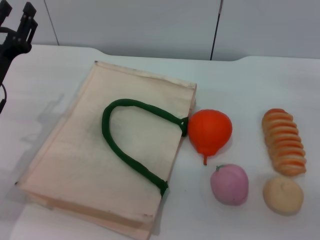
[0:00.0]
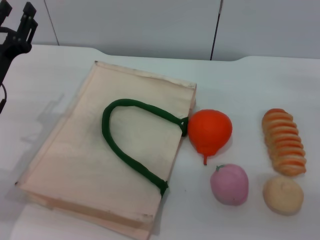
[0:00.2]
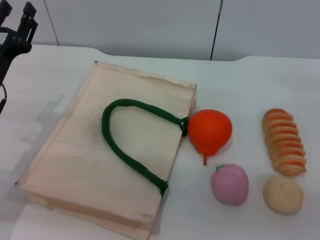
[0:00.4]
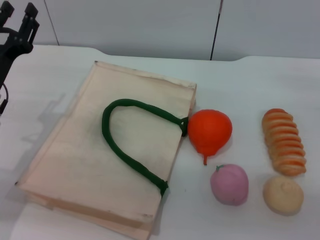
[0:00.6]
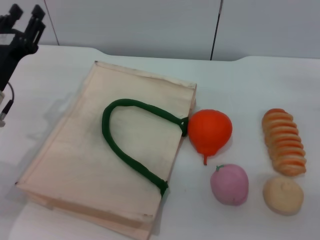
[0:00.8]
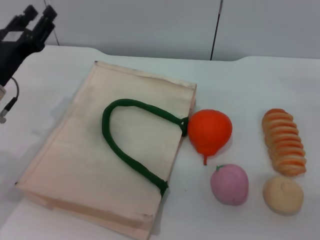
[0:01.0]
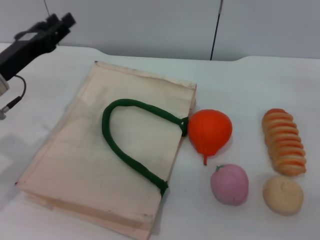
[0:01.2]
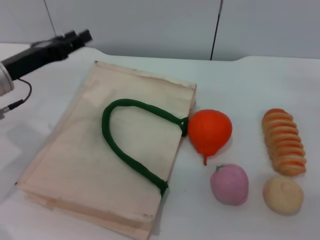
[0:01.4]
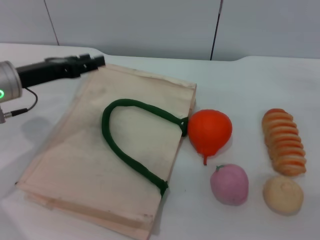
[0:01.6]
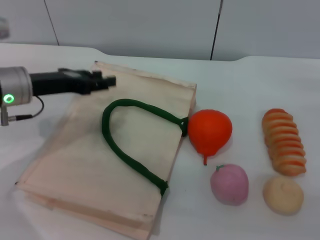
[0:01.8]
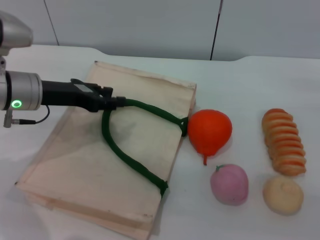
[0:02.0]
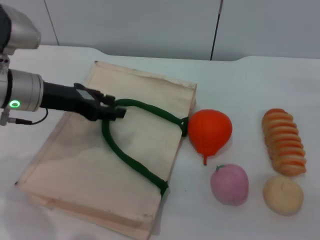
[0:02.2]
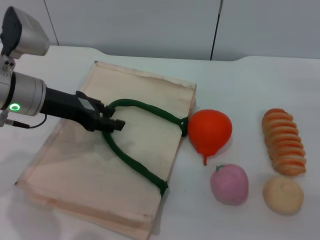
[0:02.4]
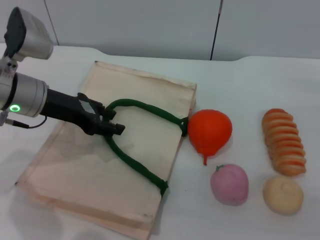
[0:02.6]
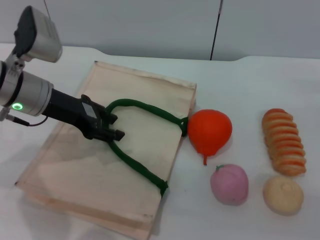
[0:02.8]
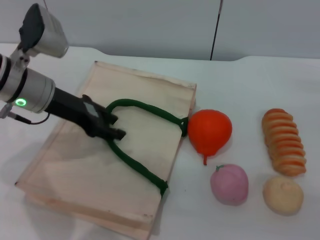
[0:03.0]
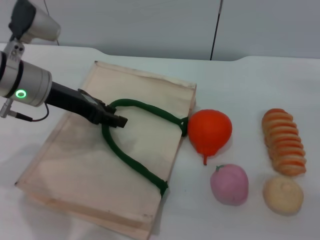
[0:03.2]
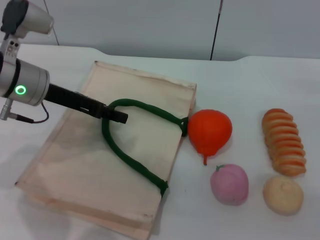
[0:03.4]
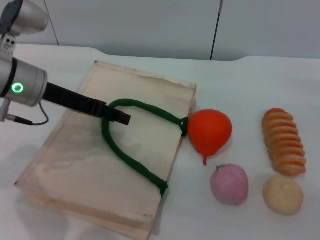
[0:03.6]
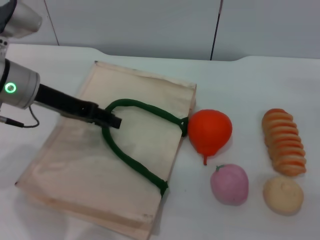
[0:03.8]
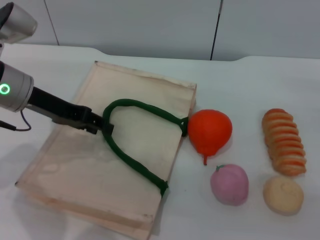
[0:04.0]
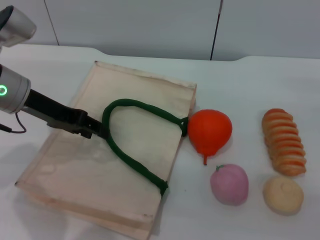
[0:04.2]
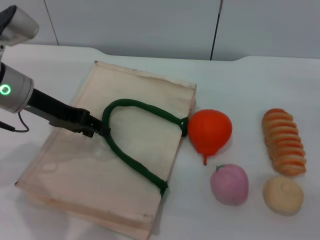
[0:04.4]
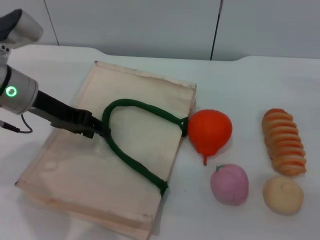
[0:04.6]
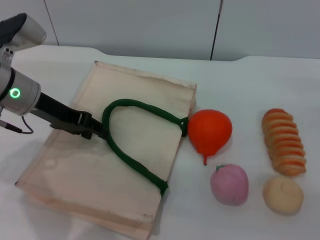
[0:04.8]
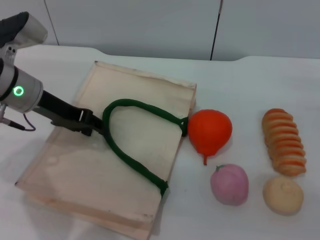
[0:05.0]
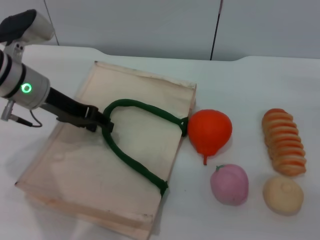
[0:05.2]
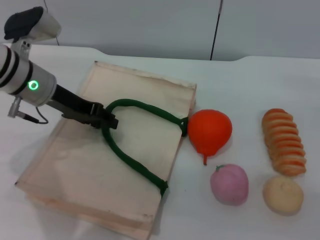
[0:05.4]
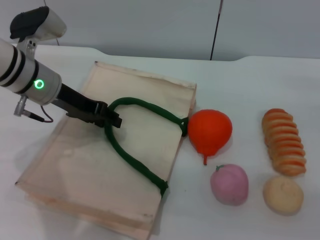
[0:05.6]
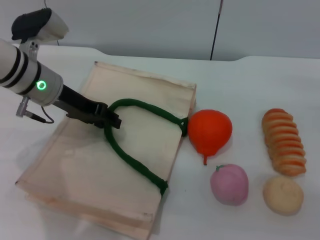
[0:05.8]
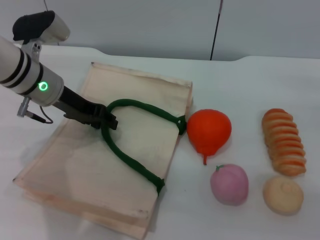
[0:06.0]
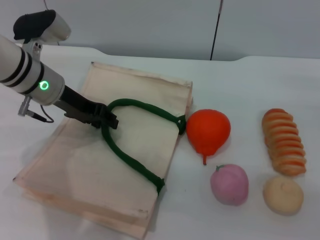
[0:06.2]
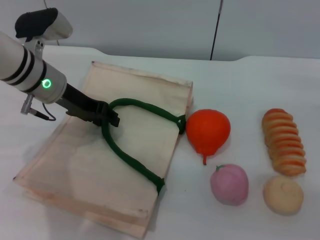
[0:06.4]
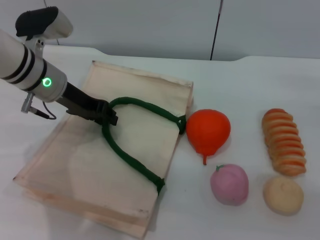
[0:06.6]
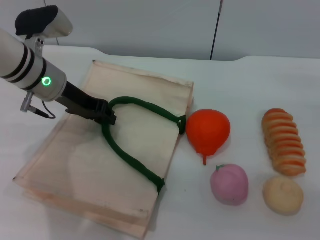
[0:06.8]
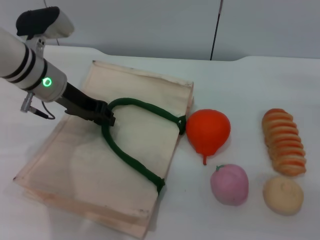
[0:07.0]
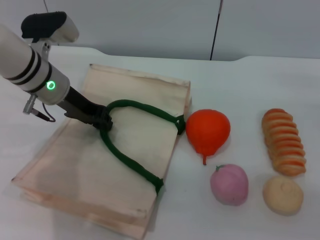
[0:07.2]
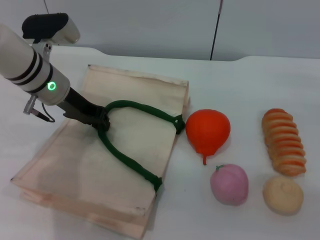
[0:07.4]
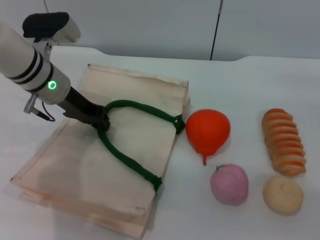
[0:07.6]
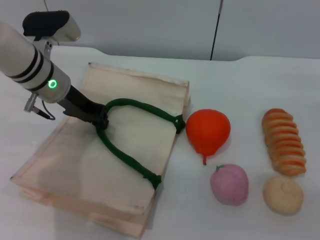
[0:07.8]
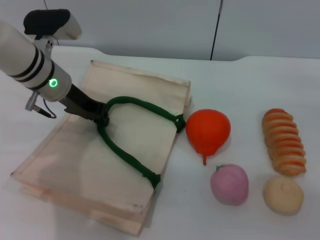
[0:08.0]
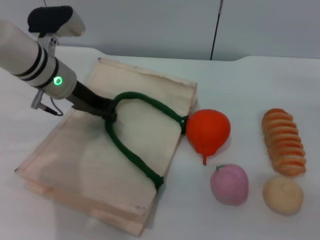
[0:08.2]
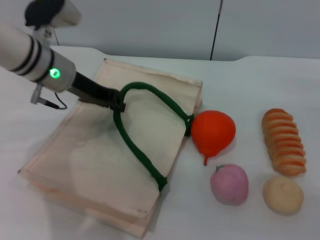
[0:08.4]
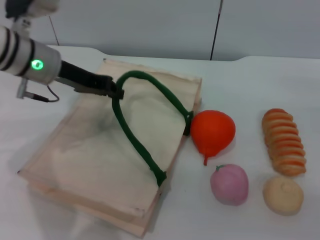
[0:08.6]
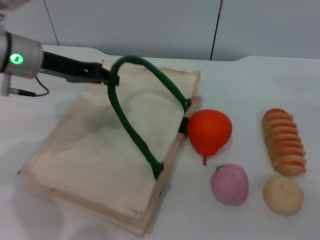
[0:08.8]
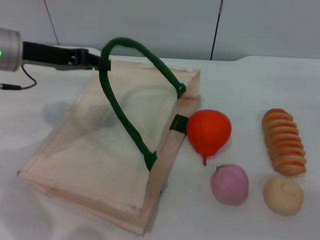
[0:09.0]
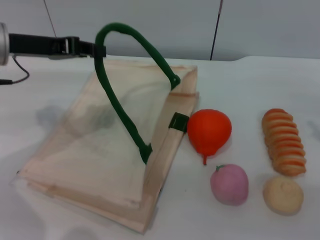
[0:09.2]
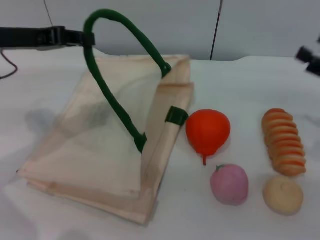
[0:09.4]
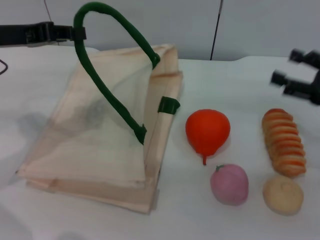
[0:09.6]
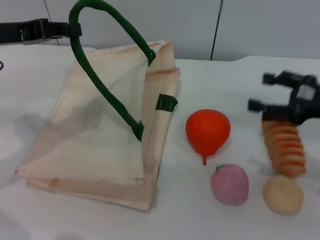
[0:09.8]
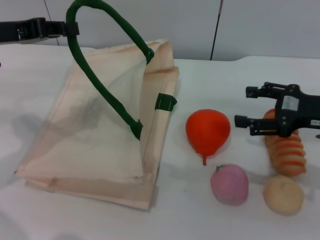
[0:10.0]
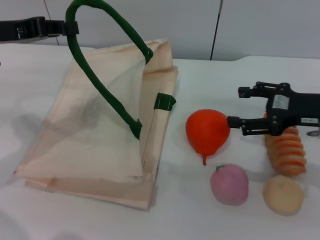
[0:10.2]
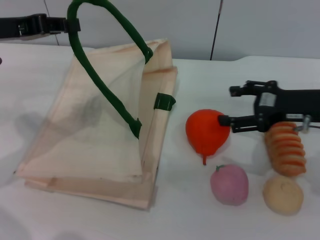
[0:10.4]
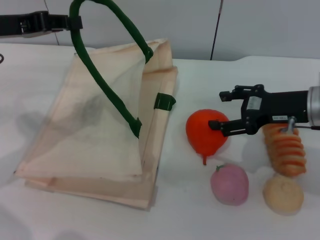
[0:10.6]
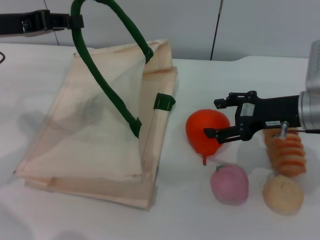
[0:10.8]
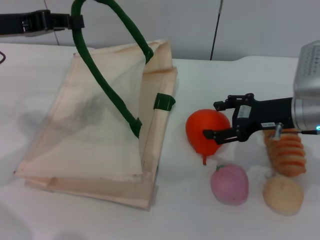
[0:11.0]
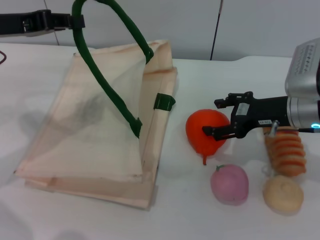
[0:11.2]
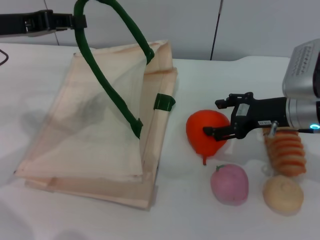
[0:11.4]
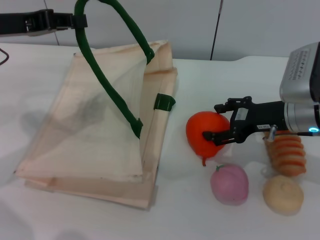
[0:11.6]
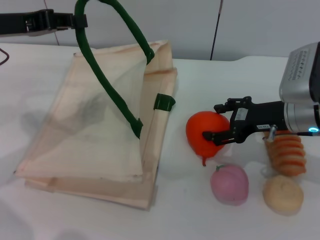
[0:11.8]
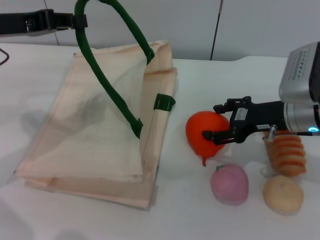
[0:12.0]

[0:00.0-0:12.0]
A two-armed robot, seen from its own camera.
Task of the whole recording: pick up the orange from the table and place it in the white handbag.
Step, 0:00.0 to 0:09.2: Lift the woven bag with the left gripper to open it.
0:00.0 to 0:01.6: The left gripper changes place by approximately 5 cm.
0:01.6 to 0:03.0: The left gripper ends up about 5 cm from where it was.
0:04.4 to 0:06.0: The left gripper changes place by some 5 cm.
0:06.0 to 0:07.6: The left gripper closes its fingers.
0:07.6 to 0:09.0: The left gripper moves upward and to the left, approximately 10 cm.
0:09.0 to 0:10.4: The right gripper moves to the left, some 10 cm. The left gripper ends up roughly 5 cm from where it was.
0:10.4 to 0:12.0: There are only small adjustments of the grippers.

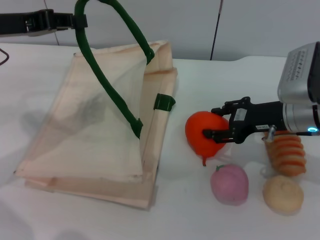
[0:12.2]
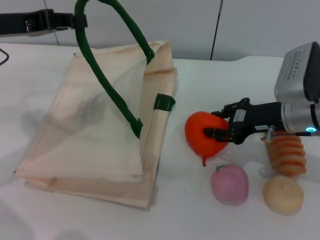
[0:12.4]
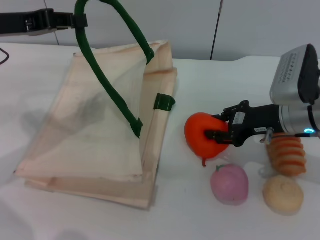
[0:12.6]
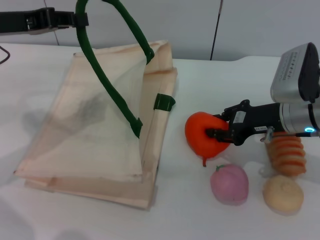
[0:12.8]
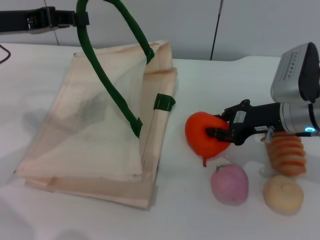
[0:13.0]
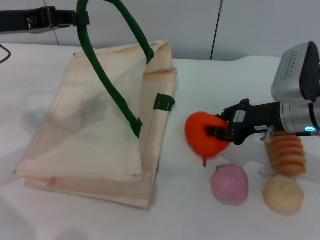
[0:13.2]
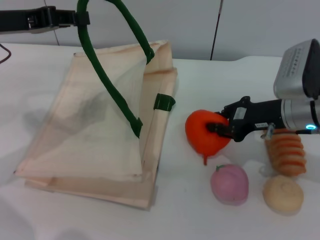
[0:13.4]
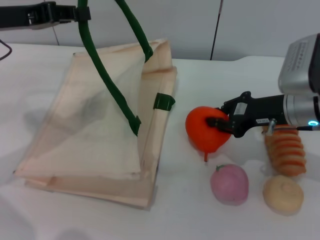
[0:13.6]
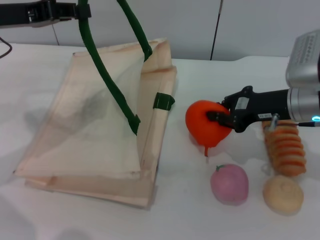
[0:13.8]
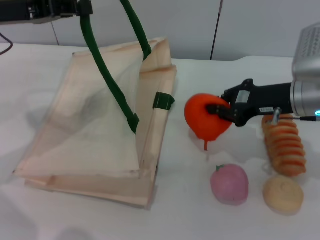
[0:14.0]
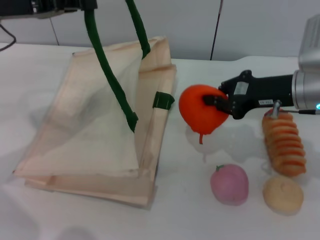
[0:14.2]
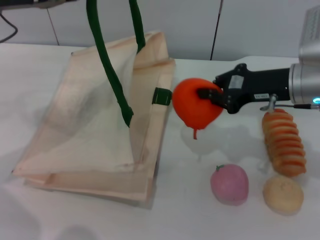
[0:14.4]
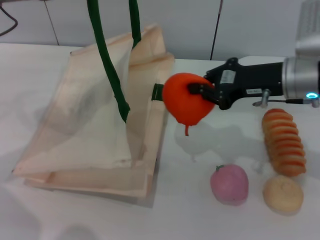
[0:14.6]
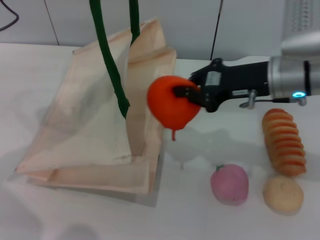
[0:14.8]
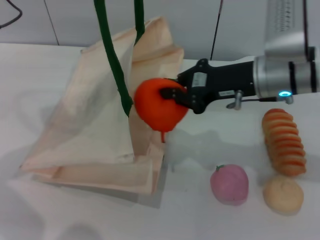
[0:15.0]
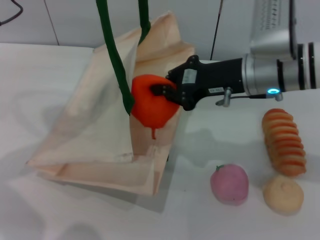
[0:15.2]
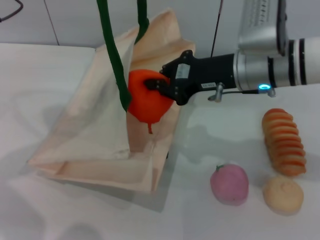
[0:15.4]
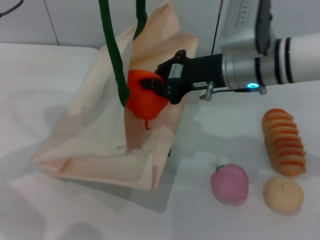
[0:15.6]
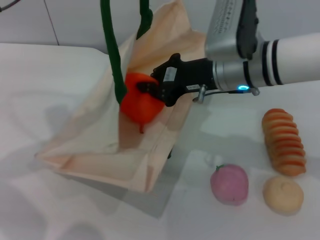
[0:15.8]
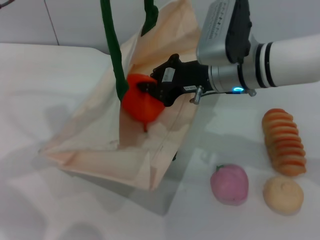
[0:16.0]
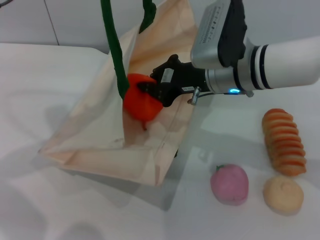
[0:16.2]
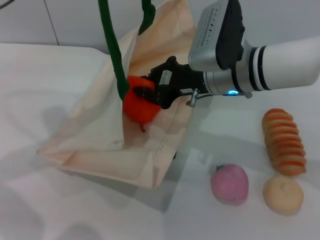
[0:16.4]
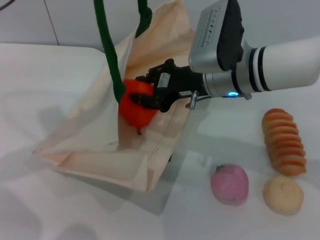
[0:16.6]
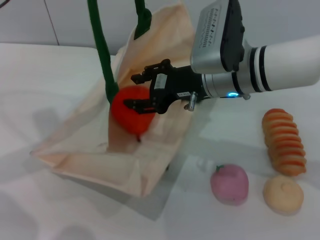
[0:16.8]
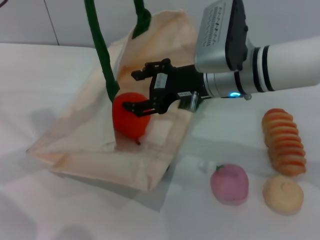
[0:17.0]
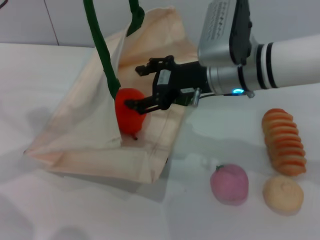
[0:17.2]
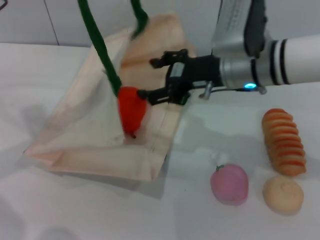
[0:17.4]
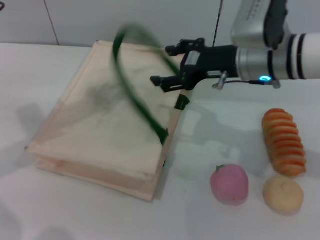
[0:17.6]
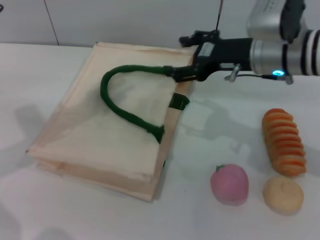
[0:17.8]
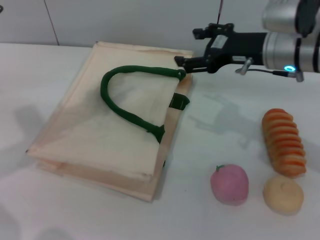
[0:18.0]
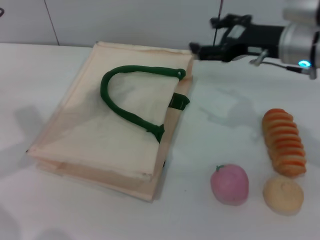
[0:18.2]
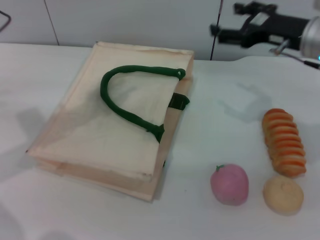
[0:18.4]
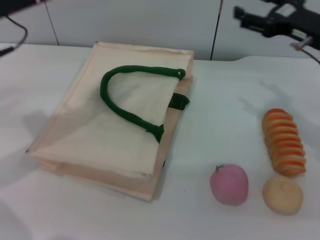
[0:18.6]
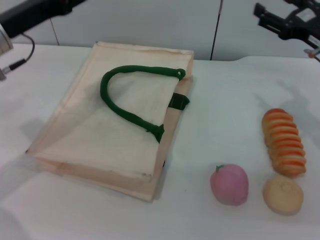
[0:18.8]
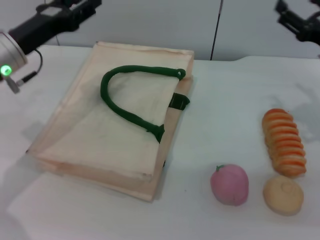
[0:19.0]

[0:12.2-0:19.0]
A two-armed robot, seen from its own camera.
Task of the whole recording: pick up the orange from the table and place it in the white handbag.
Step, 0:14.2 to 0:17.0: Place the orange into the woven bag with the right gripper.
Step, 0:17.4 to 0:18.0: Lower the woven bag with the left gripper to close it.
0:12.2 to 0:13.6: The right gripper closes.
0:13.6 to 0:15.0: The right gripper shifts approximately 10 cm to the left and upward.
0:15.0 to 0:16.2: The right gripper goes about 5 cm to the left.
0:16.2 to 0:17.6: The right gripper opens its fingers.
0:17.6 to 0:19.0: The right gripper is displaced to the right by about 15 cm. The left gripper goes roughly 10 cm downward, and opens its fingers.

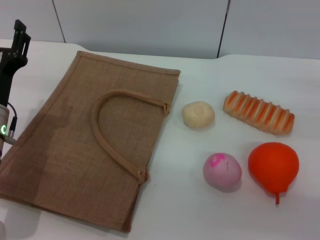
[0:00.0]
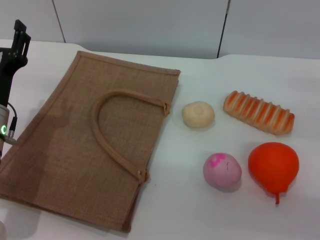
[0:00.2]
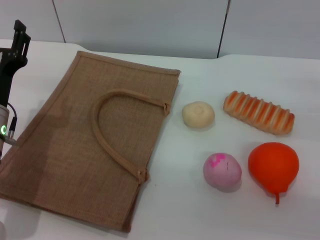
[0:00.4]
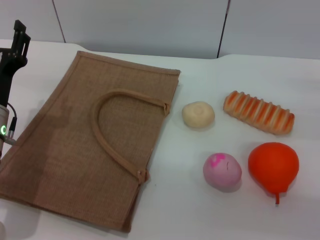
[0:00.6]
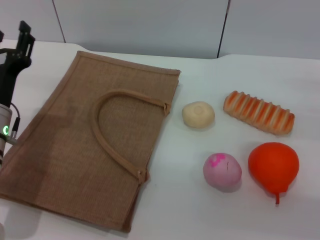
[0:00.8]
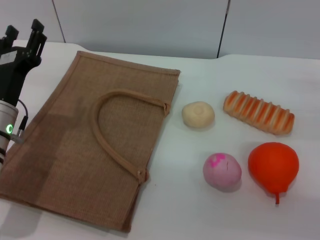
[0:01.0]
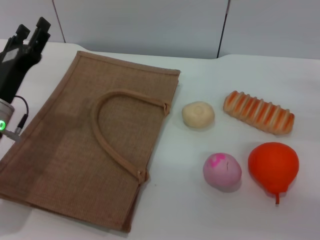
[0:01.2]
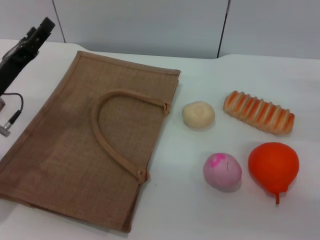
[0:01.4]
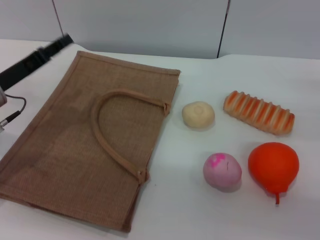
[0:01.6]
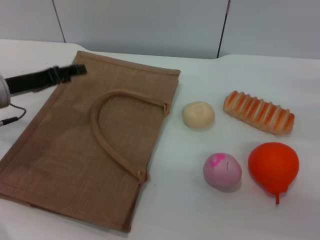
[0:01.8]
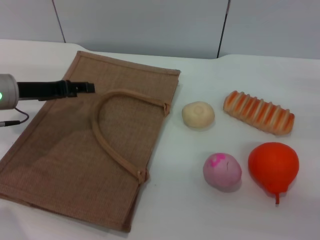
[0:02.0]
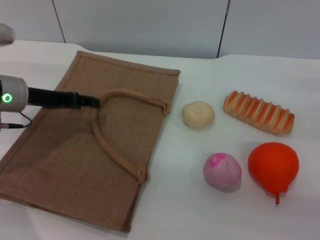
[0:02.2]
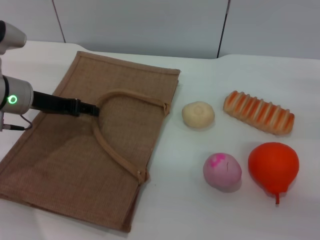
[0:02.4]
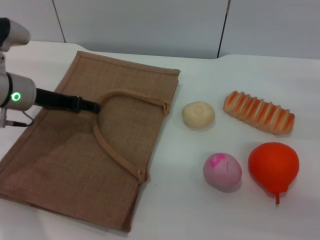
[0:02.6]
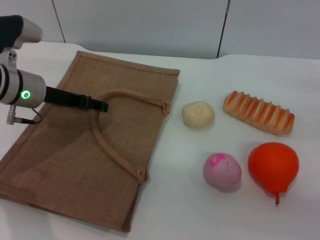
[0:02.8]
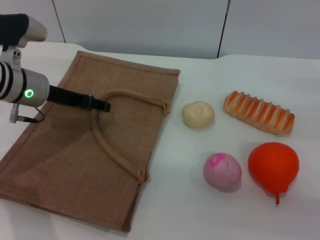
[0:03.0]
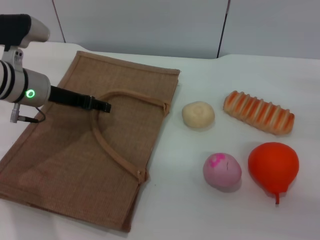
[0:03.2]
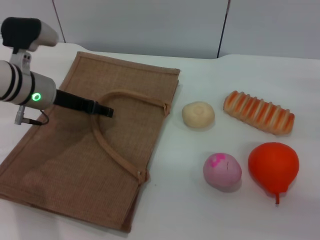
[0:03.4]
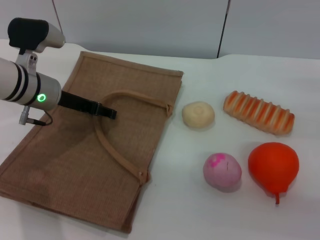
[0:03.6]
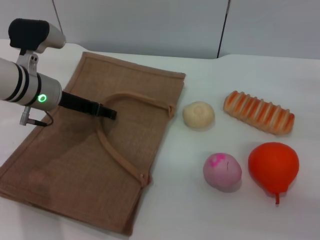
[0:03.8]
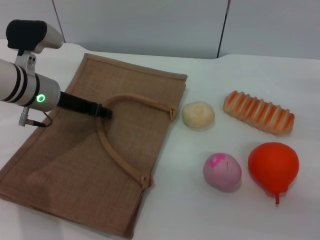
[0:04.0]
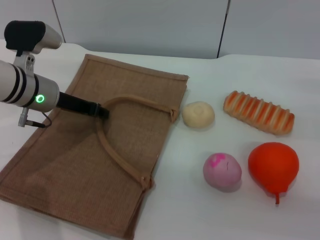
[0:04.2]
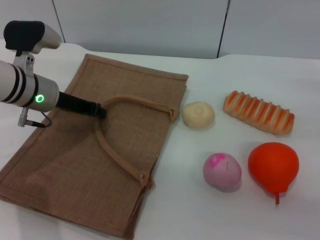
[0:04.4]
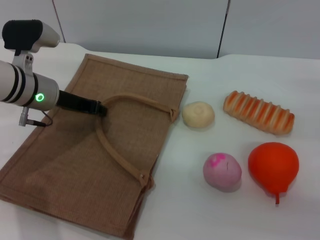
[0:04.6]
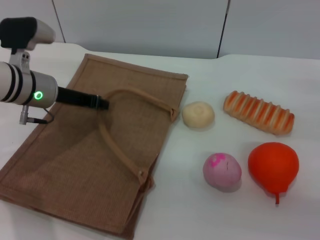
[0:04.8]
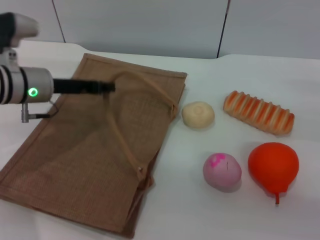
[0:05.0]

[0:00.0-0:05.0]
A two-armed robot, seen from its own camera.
Task of the whole recording: pick up the bread and egg yolk pastry from the table and place it in the brown handbag.
0:00.0 to 0:01.6: The left gripper changes place by approximately 5 cm.
0:01.6 to 0:03.4: The left gripper heads to the right and forward, covering about 10 cm.
0:03.4 to 0:05.0: The left gripper closes its fingers.
